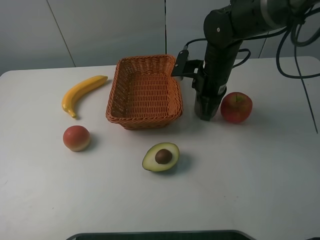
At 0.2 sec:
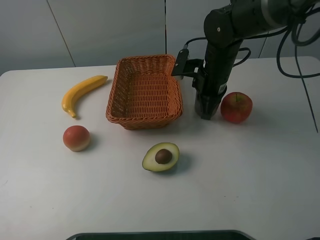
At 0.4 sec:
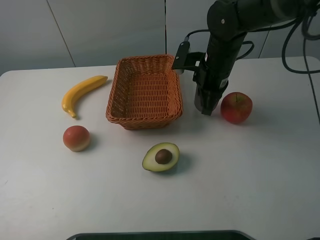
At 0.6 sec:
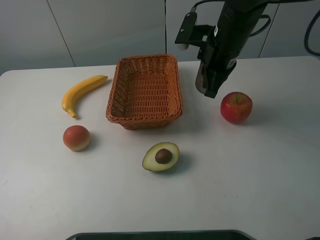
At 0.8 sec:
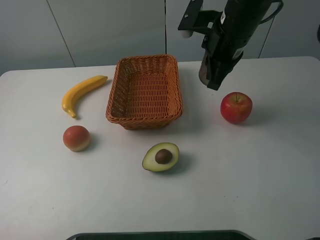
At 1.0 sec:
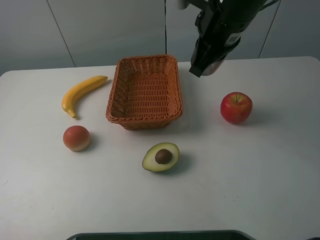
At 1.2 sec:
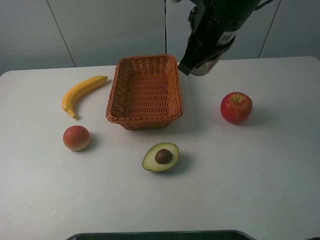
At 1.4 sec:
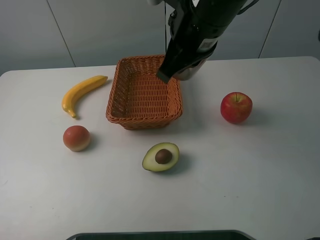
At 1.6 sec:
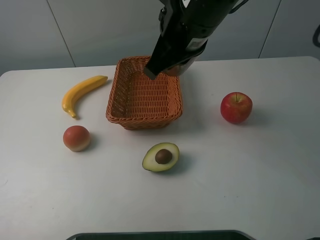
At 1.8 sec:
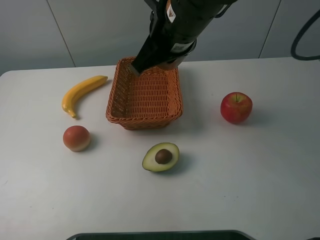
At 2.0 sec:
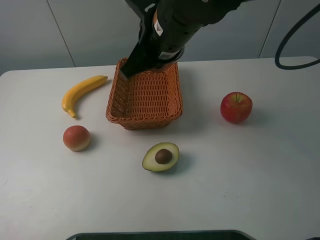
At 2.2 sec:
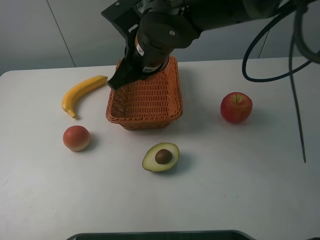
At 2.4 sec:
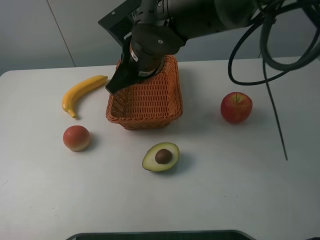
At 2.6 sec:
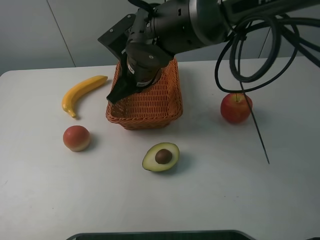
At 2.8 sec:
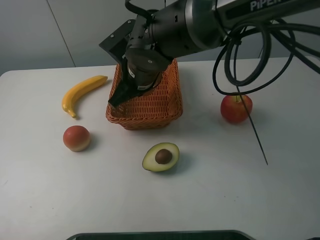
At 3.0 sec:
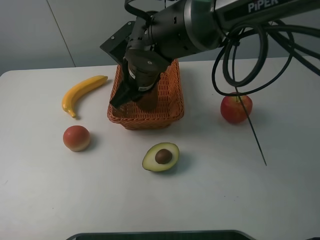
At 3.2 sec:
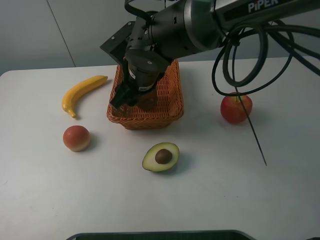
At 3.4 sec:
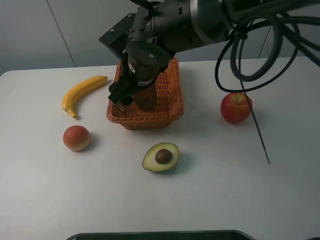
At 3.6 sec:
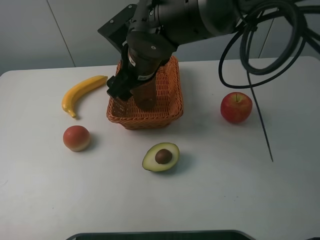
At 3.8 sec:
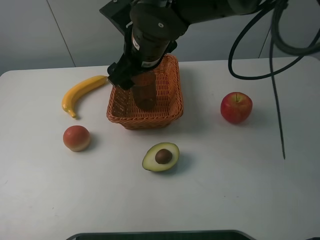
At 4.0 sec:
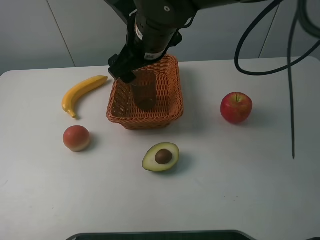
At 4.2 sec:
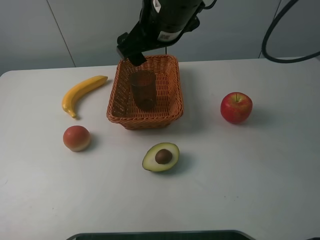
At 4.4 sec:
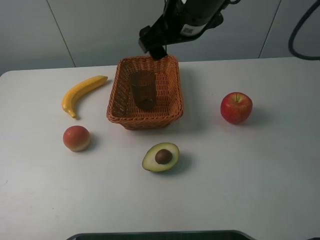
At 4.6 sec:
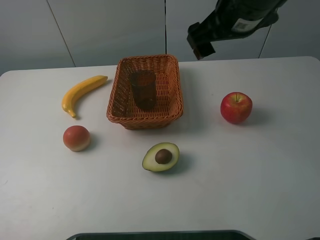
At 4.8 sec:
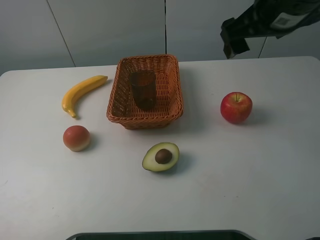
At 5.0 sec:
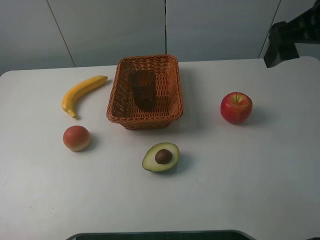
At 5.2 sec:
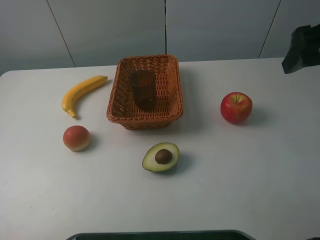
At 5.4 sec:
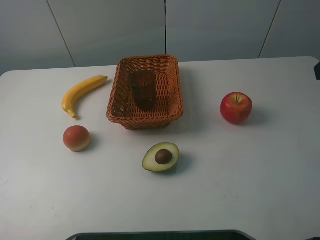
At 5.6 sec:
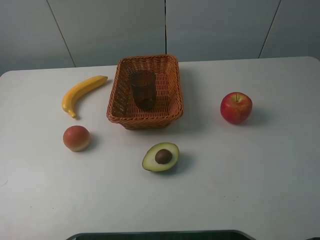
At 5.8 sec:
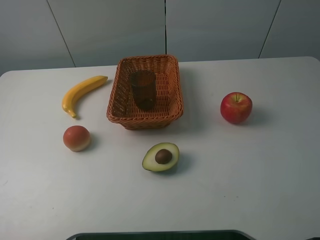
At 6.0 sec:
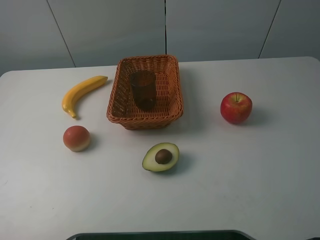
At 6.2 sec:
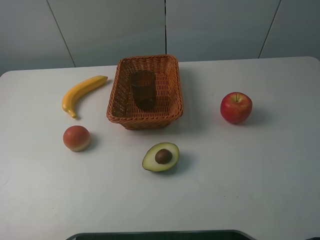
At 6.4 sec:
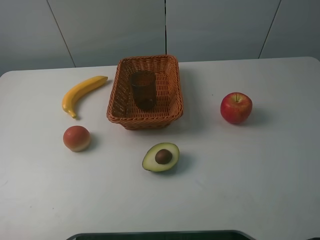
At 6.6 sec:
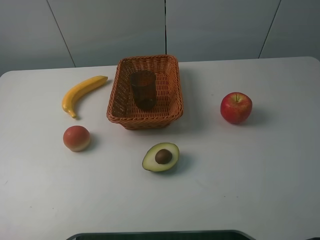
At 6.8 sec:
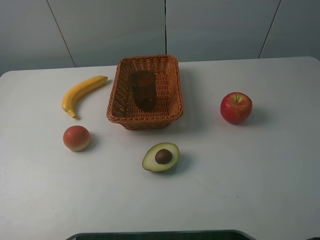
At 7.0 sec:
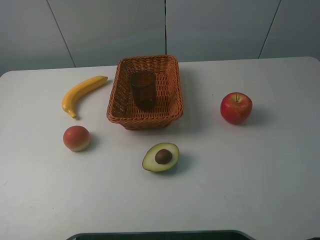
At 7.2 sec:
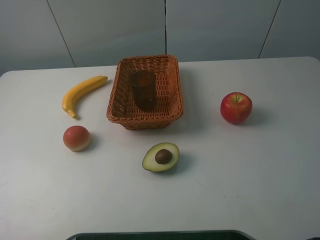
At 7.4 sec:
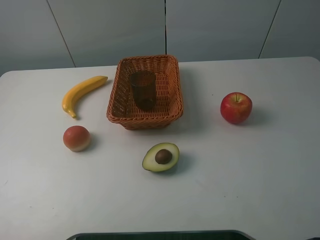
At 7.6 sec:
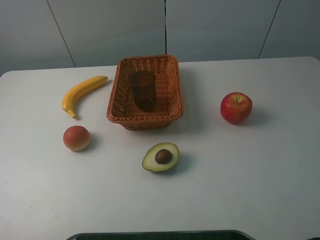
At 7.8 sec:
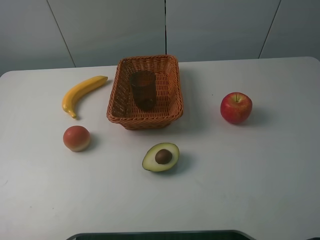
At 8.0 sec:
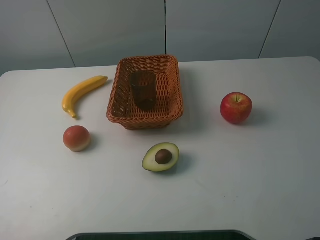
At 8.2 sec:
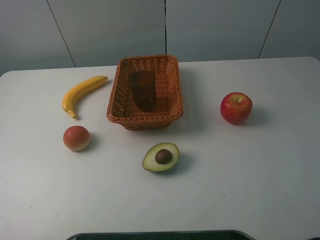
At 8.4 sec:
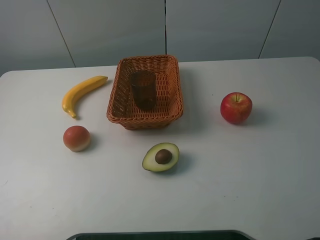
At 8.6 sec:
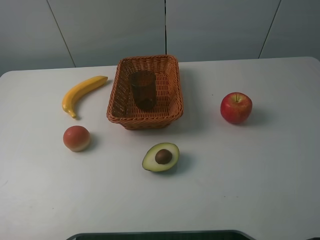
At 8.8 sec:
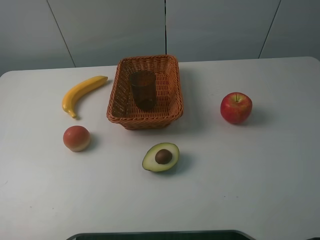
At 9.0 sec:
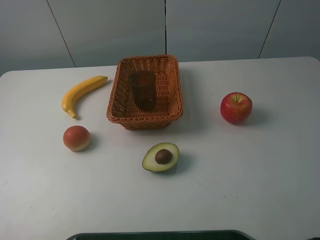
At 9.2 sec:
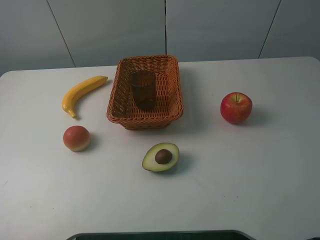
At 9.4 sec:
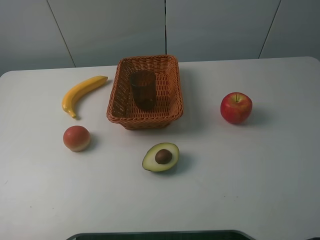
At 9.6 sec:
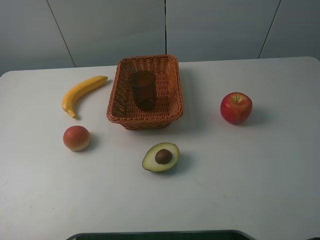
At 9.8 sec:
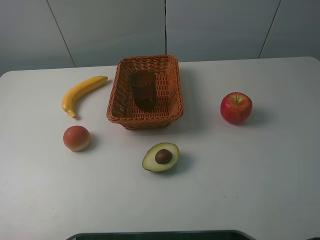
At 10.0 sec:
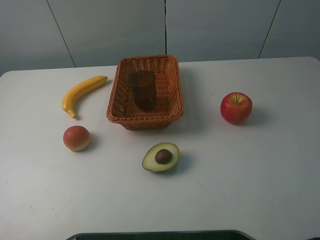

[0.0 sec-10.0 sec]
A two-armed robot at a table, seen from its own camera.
0.0 sec to 1.4 sec: The right gripper moves upward and backward, roughly 15 cm.
1.4 sec to 2.8 sec: The right gripper moves downward and to the left, roughly 15 cm.
2.8 sec to 4.2 sec: The right gripper goes some 15 cm upward and to the right, and opens its fingers.
4.2 sec to 5.8 sec: The right gripper goes approximately 35 cm to the right and backward.
8.6 sec to 10.0 sec: Neither gripper changes place.
